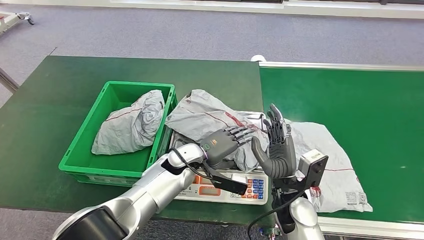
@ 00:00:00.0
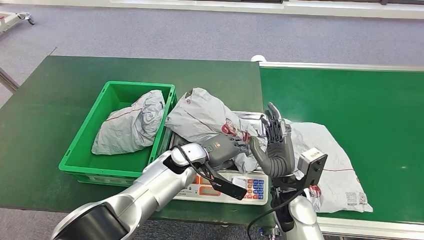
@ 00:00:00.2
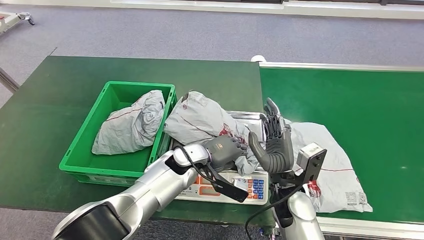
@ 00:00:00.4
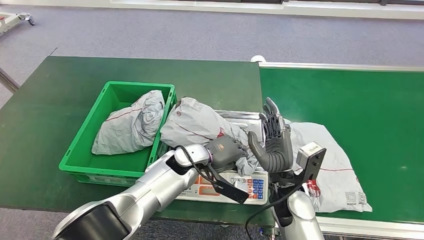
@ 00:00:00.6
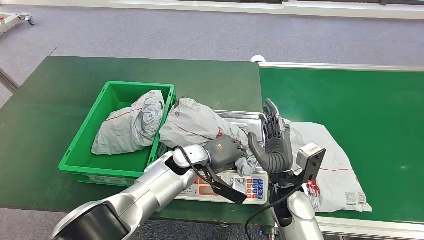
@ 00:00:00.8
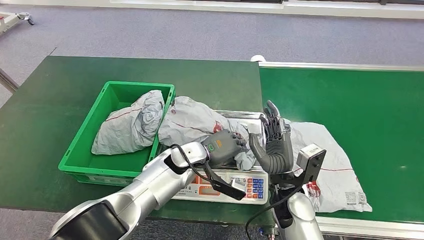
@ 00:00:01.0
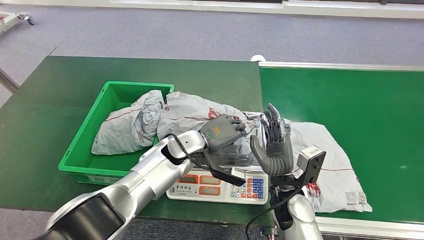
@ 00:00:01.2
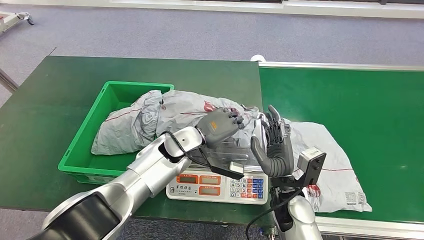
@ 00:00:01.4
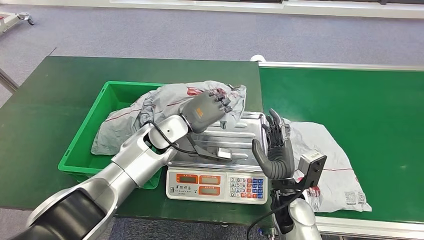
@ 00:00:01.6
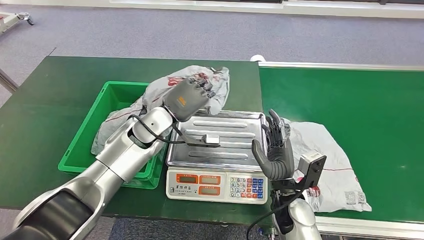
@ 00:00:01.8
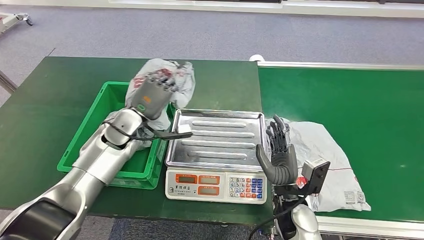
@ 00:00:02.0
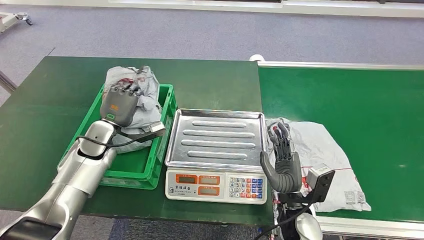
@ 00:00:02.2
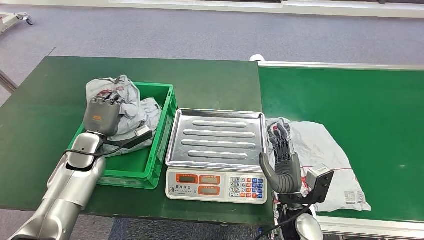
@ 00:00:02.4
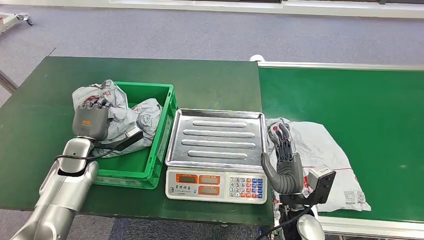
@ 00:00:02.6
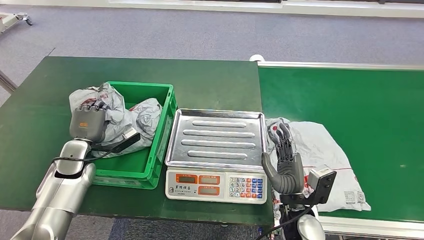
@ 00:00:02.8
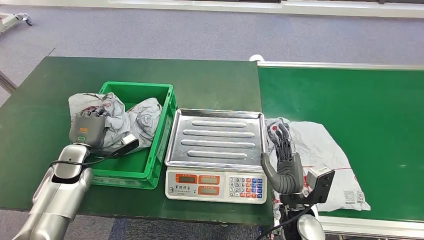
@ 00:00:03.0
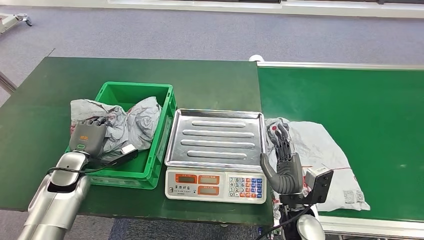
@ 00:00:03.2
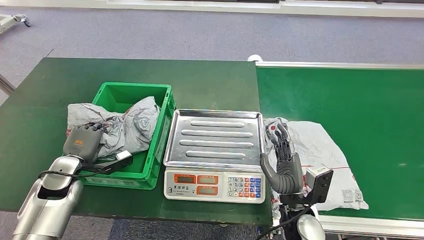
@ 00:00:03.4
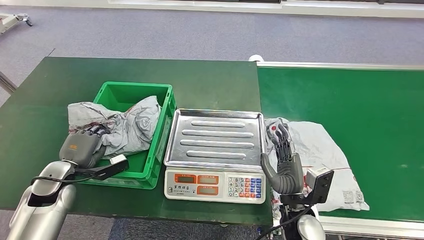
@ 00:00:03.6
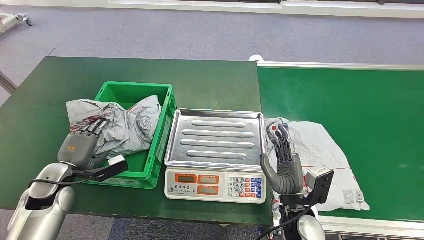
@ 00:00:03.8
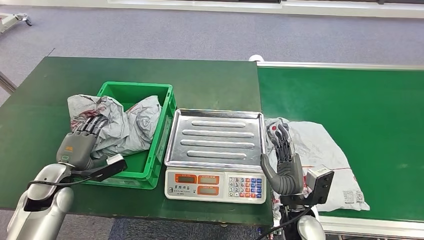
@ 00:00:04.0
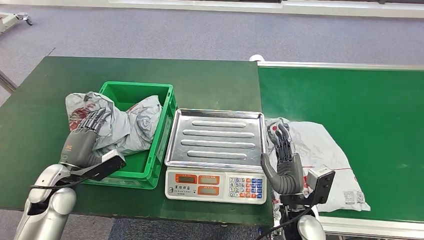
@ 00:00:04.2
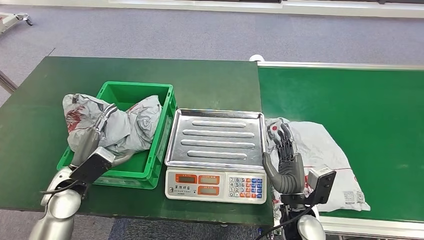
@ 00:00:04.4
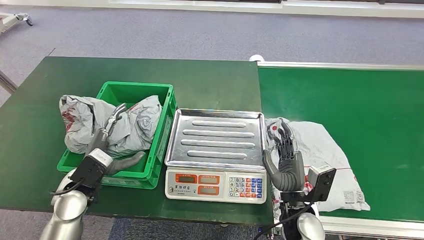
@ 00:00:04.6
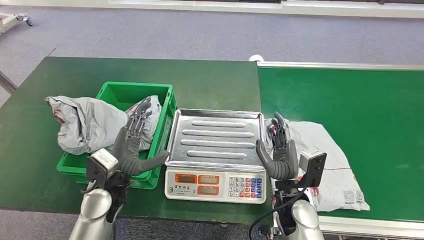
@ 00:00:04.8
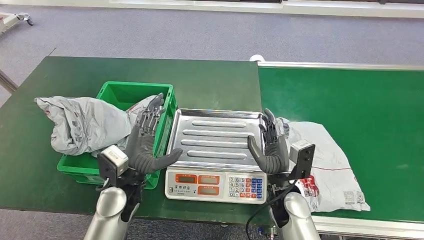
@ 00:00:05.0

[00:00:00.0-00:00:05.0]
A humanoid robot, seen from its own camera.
Step, 00:00:01.6 to 00:00:05.0: Place the package into the parcel locker.
00:00:00.0 to 00:00:01.6: The left hand is displaced upward and forward by some 10 cm.
